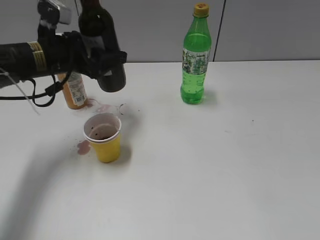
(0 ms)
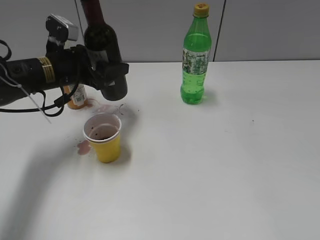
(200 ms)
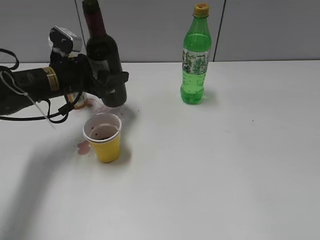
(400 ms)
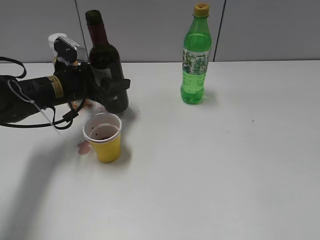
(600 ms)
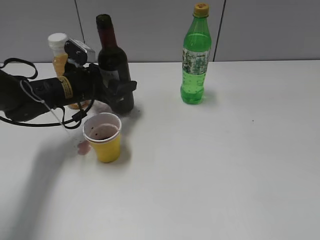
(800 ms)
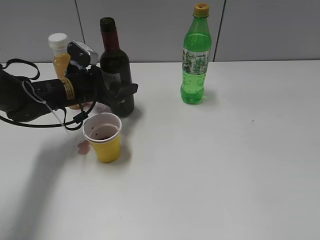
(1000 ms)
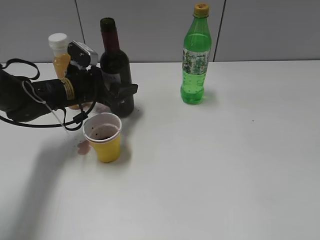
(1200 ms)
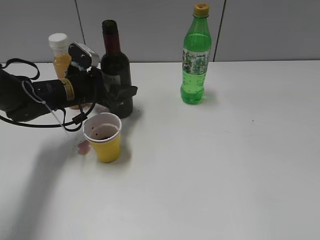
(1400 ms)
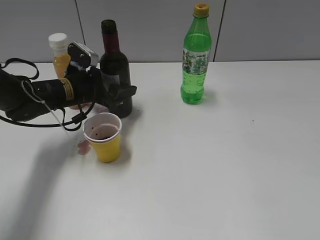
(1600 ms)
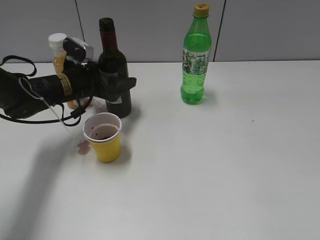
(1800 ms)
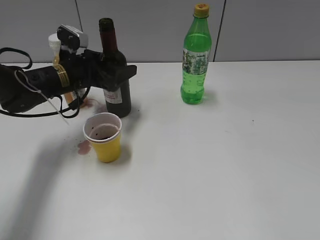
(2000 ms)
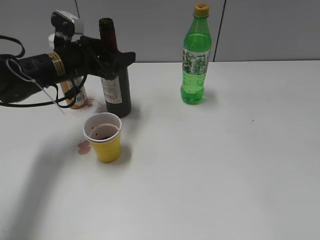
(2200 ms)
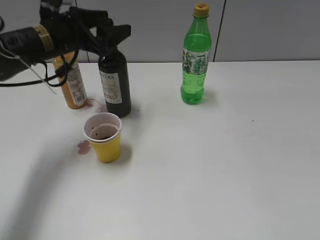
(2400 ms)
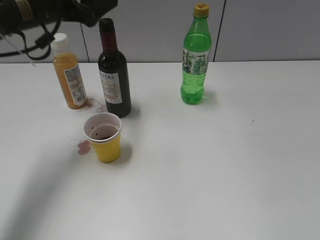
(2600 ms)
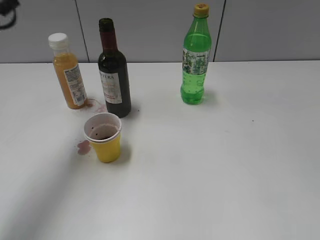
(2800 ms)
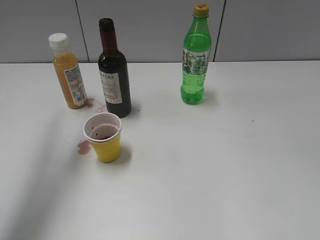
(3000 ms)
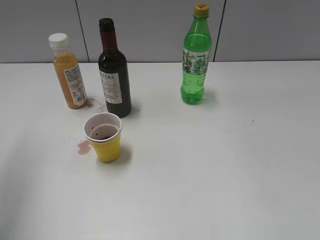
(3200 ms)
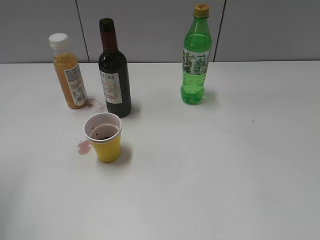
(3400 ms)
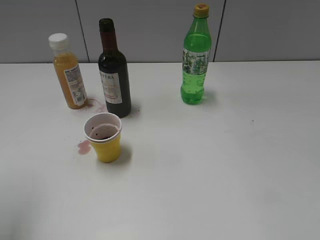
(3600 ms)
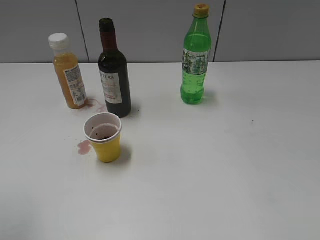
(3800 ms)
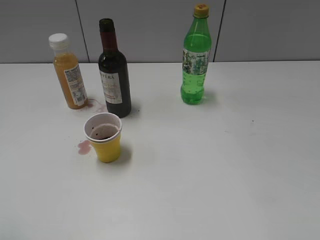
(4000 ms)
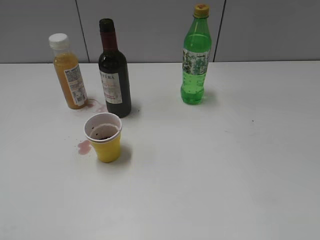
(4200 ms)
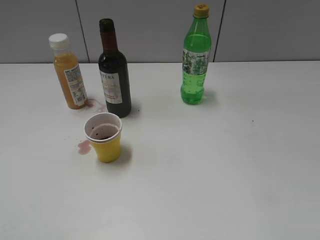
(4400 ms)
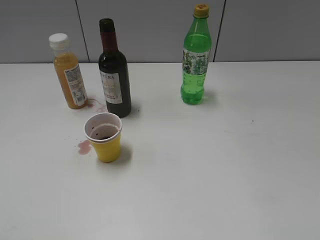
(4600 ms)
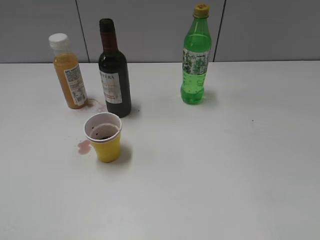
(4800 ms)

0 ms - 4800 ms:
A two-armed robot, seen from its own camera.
Step, 0 ms - 2200 ms: Place the red wine bottle on the table with left gripper.
0 ms - 1600 ms: The left gripper shifts about 10 cm downward.
1600 ms - 3200 ms: The left gripper shifts some 35 cm upward, backward and to the left.
3200 ms - 4800 ms: The left gripper travels backward and downward by some 30 cm.

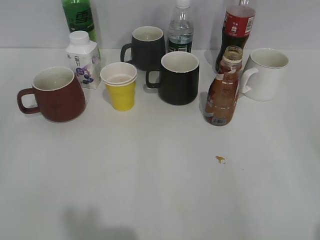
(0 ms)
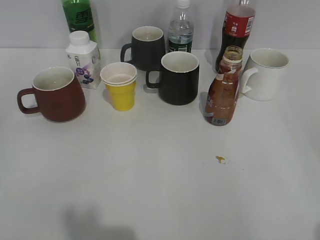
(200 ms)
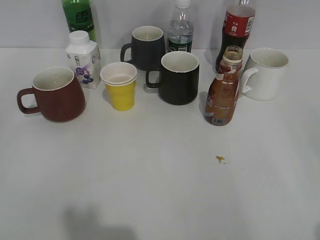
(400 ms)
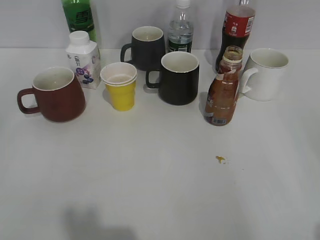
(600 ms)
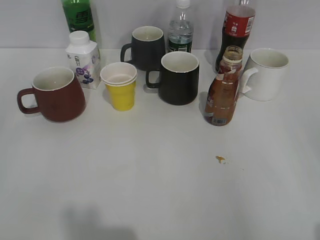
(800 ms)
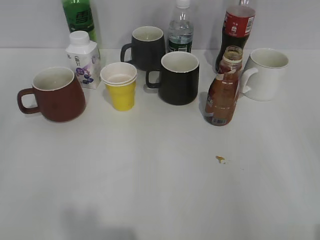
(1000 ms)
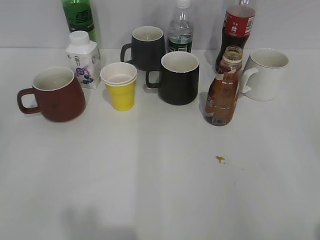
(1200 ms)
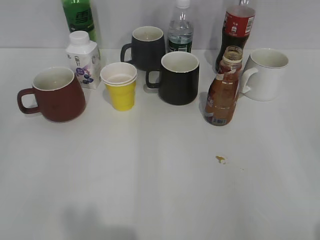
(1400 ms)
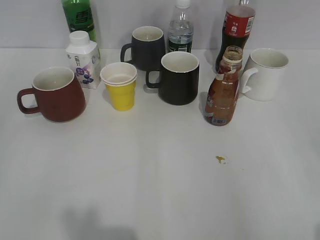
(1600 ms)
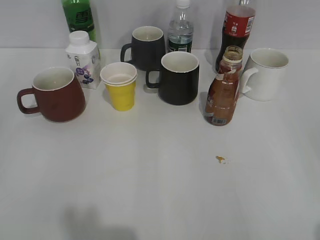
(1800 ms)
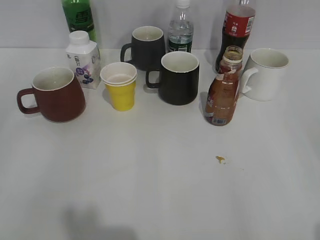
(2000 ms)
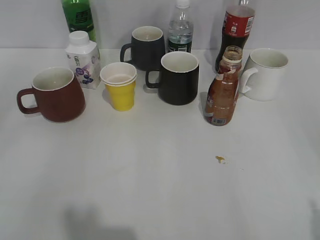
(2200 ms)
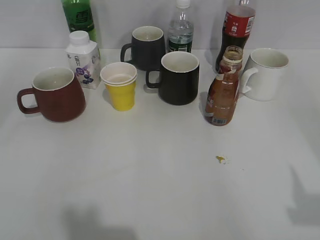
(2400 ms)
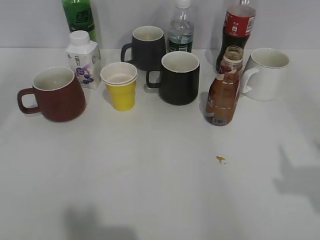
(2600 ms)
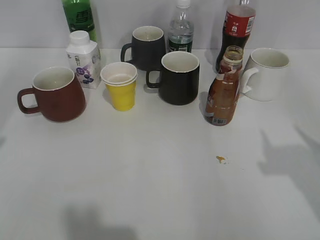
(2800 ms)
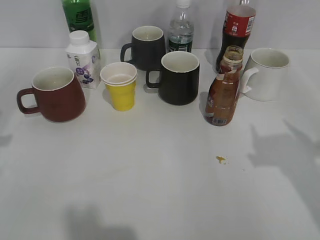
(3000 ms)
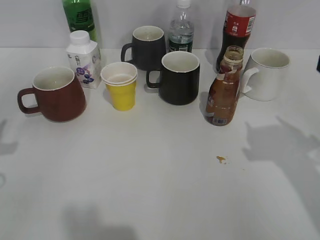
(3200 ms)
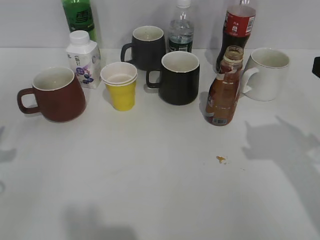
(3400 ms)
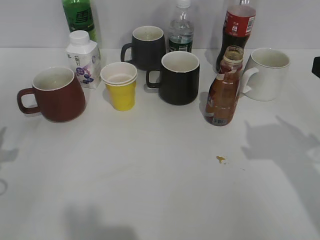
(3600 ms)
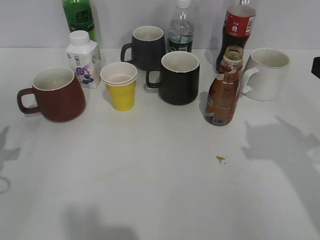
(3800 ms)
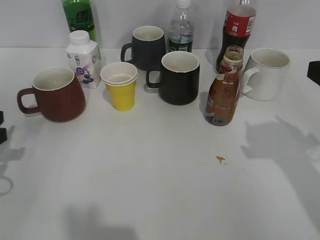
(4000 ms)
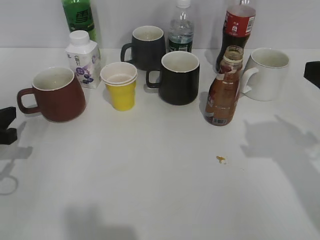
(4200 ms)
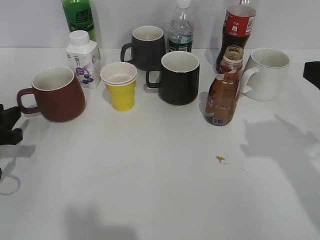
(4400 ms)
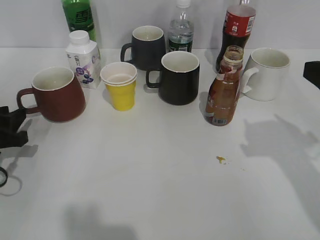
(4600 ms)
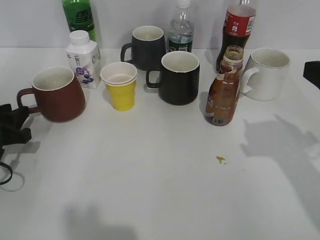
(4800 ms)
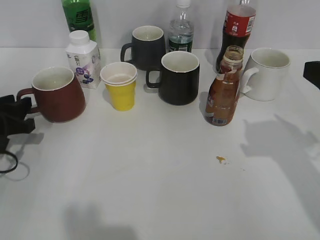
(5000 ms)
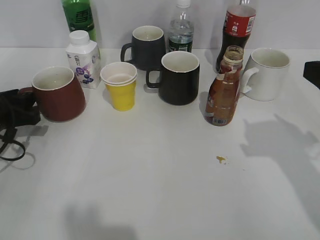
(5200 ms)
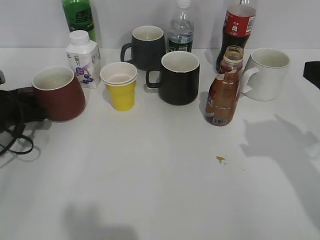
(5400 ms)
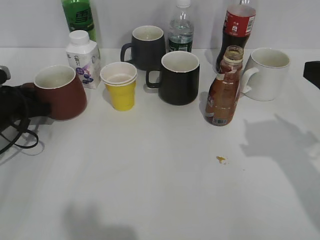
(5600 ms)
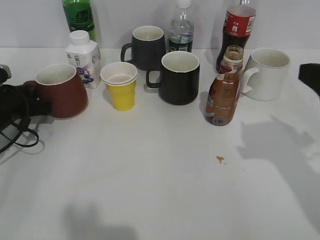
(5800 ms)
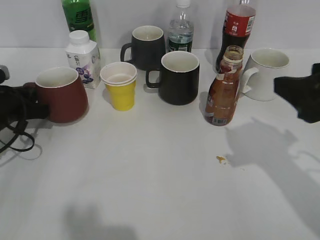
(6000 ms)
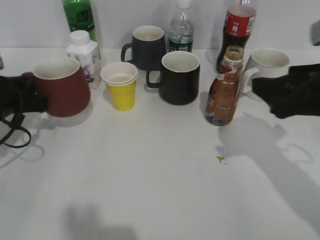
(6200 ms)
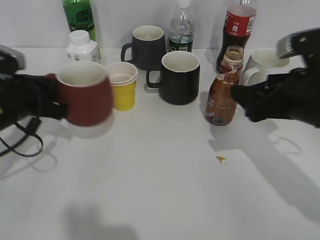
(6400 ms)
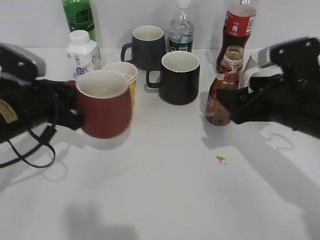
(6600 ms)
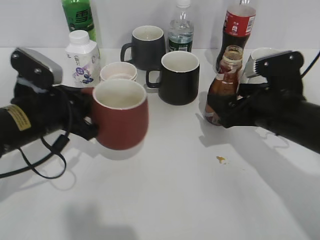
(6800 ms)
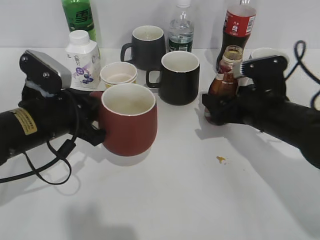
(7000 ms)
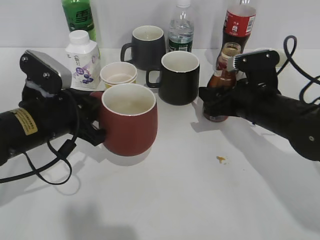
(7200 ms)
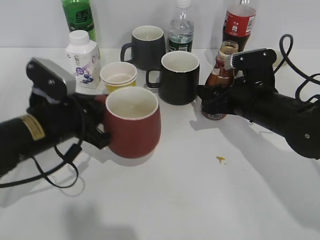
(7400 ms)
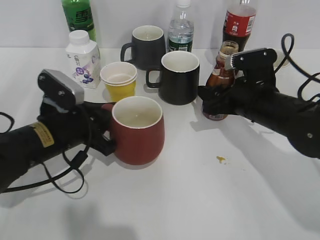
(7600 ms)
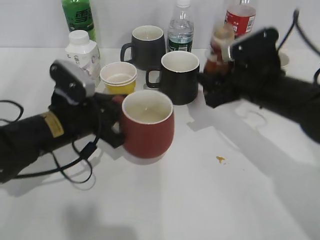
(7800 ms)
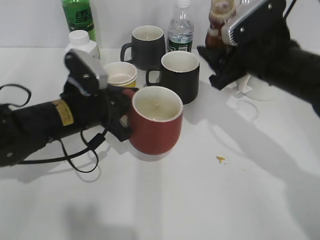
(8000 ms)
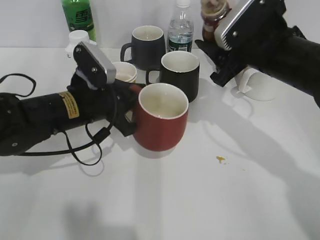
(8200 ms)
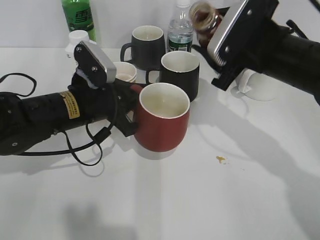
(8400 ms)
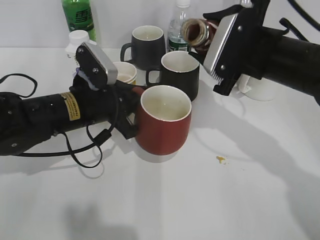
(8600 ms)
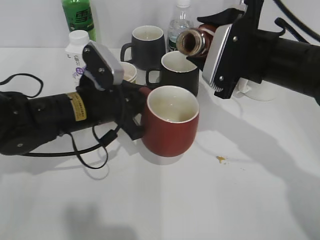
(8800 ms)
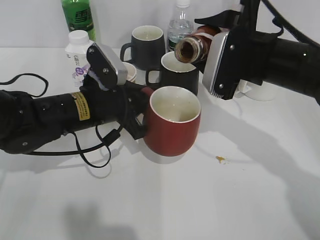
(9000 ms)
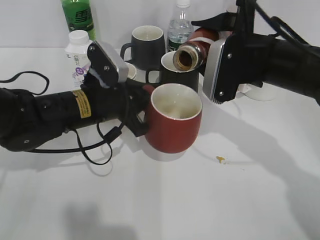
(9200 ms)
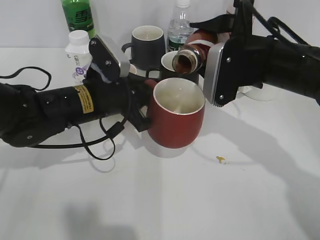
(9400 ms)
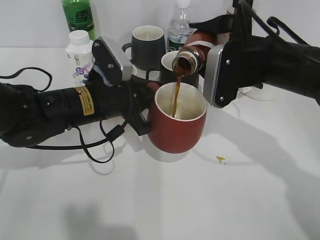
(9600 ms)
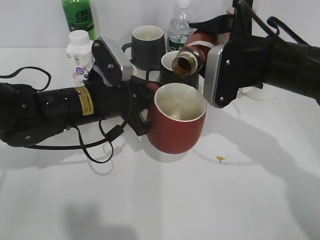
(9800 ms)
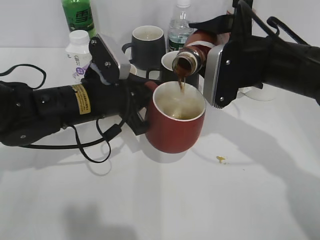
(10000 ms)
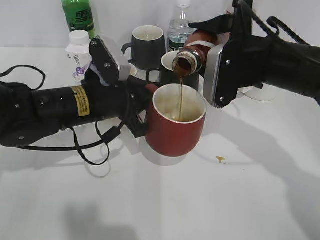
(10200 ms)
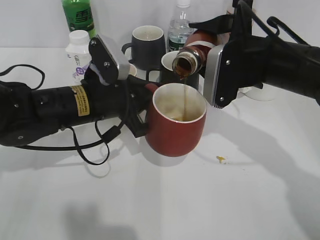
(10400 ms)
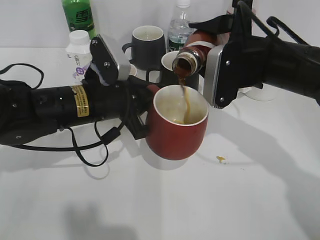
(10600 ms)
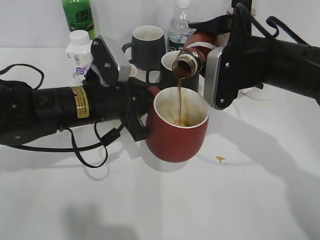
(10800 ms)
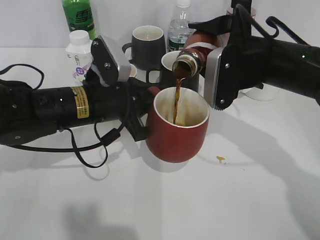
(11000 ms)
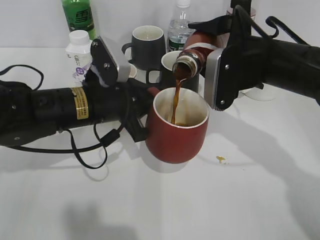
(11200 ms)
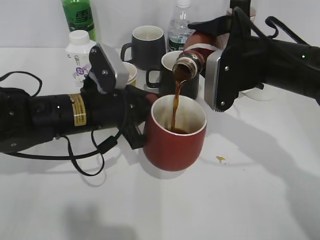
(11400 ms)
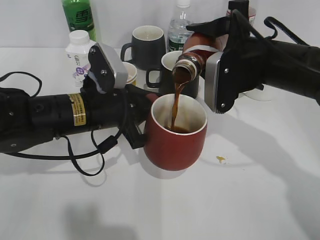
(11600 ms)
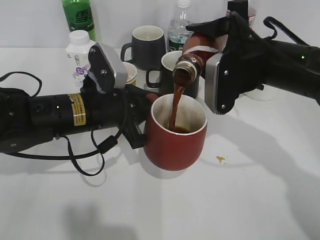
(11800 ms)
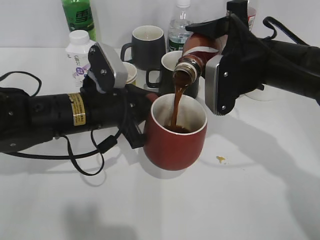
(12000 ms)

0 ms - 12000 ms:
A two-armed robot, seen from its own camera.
Step, 1800 ms - 5600 ms: Grasp the red cup with left gripper.
Step, 5800 ms - 7200 ms: Grasp the bottle with coffee with right gripper.
1600 ms - 3000 ms: The right gripper is displaced forward by approximately 15 cm.
3000 ms - 4400 ms: The right gripper shifts by about 5 cm. Meanwhile the left gripper goes some 10 cm downward.
4400 ms - 6000 ms: The left gripper is displaced forward by some 10 cm, and closes.
6000 ms - 7600 ms: The right gripper moves downward, forward and to the left, approximately 20 cm, and opens, then closes again, while the left gripper travels to the right and backward by about 15 cm.
7600 ms - 9000 ms: The left gripper is displaced to the right by roughly 5 cm. Meanwhile the right gripper shifts about 10 cm upward.
9000 ms - 12000 ms: The grippers stay close to where they were, moving slightly.

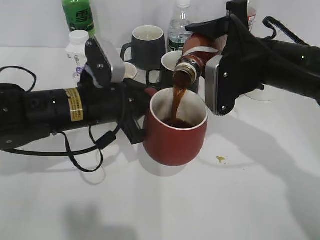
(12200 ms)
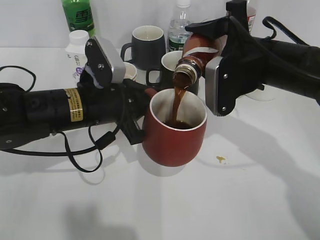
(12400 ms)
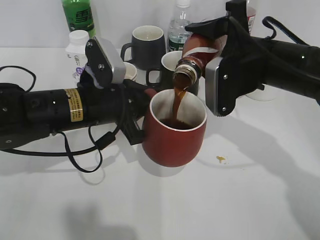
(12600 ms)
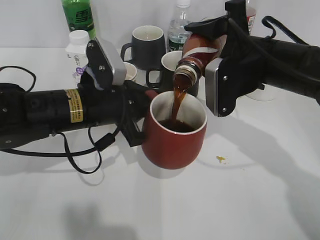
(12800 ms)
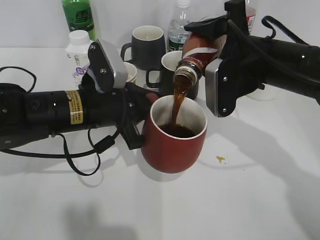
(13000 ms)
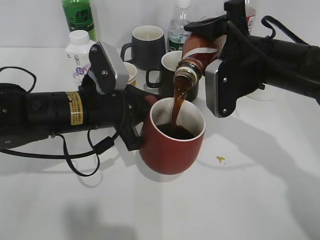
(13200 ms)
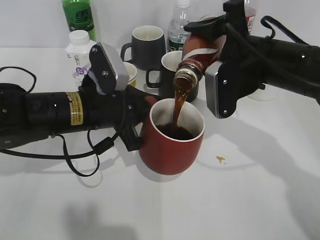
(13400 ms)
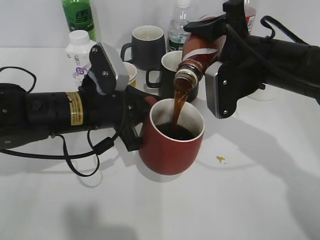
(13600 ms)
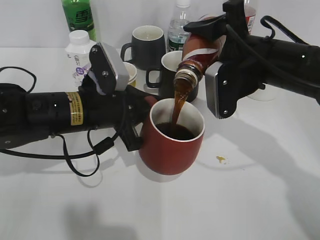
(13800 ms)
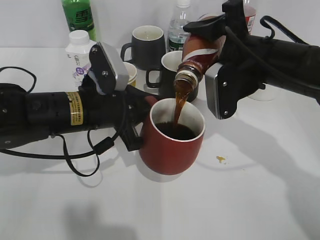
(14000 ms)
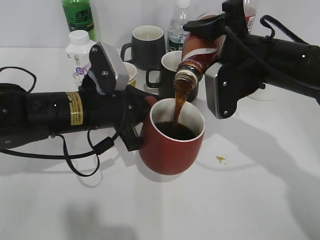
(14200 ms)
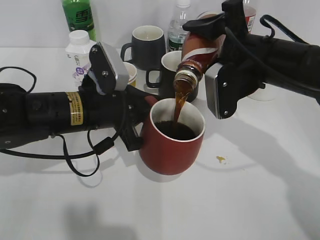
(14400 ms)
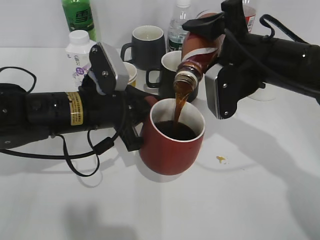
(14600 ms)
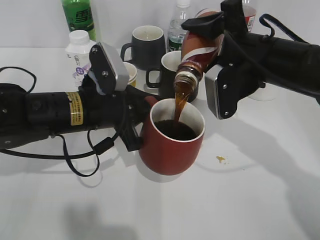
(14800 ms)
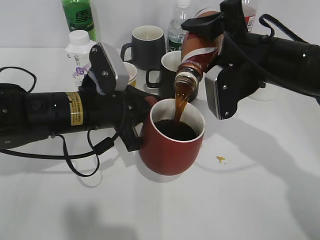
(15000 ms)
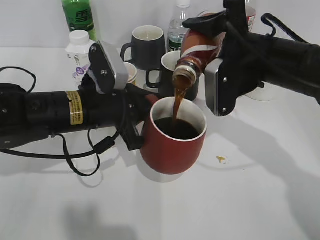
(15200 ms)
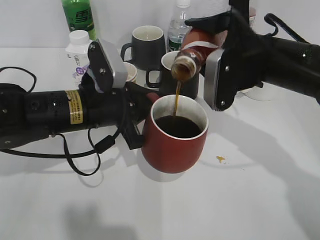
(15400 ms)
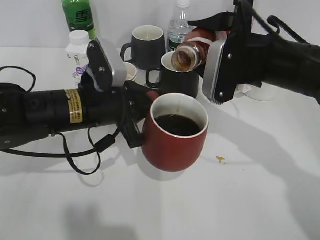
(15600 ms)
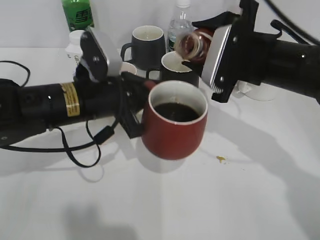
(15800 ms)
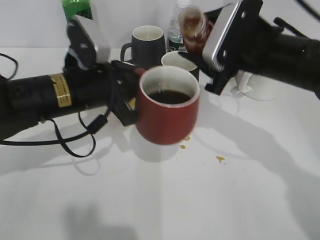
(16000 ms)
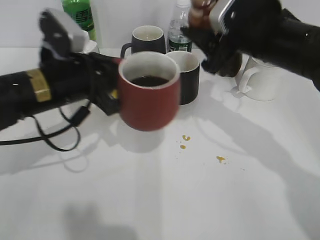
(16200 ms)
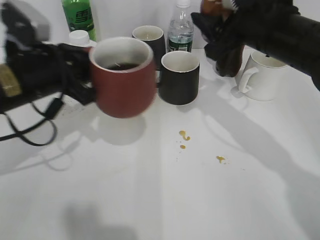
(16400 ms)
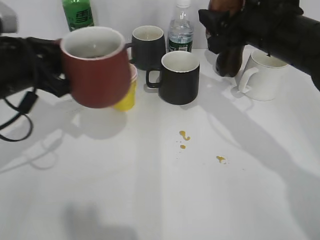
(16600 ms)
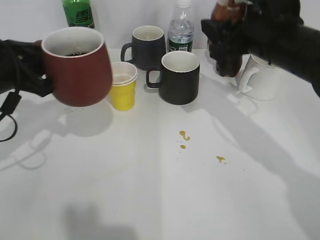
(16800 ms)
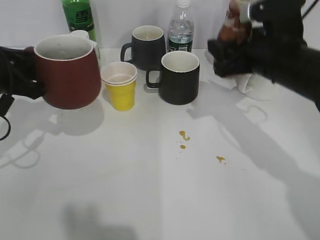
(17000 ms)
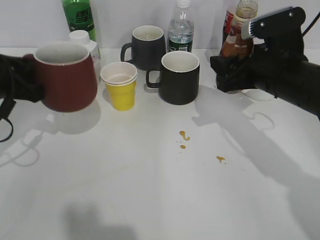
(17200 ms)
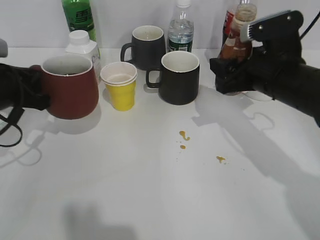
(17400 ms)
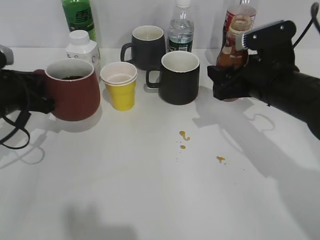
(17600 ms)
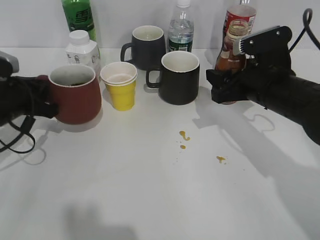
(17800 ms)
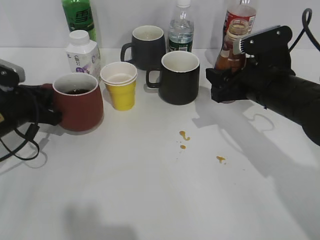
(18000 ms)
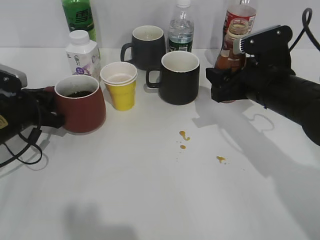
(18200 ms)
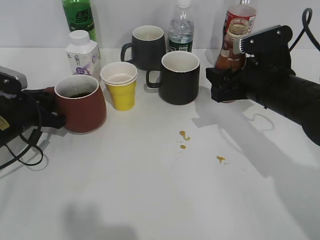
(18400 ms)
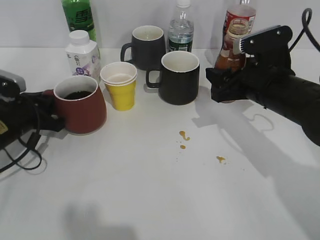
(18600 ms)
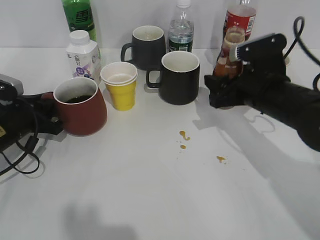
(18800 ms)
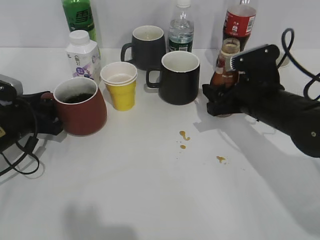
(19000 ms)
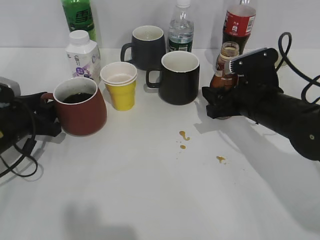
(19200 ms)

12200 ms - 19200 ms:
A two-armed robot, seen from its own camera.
Step, 12200 ms - 15600 ms: Pour the coffee from bottle to cup with right gripper.
12200 ms - 15000 ms: The grippers make only small movements.
15000 ms - 16400 ms: The left gripper travels to the left and upward by about 10 cm.
16400 ms - 17800 ms: The left gripper heads to the left and downward, covering roughly 10 cm; the right gripper heads downward, covering some 10 cm.
17800 ms - 19200 ms: The left gripper opens up.
